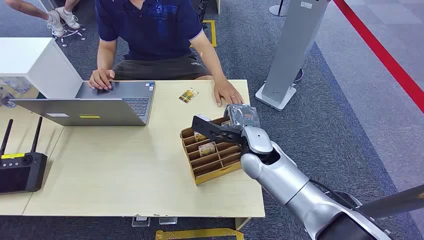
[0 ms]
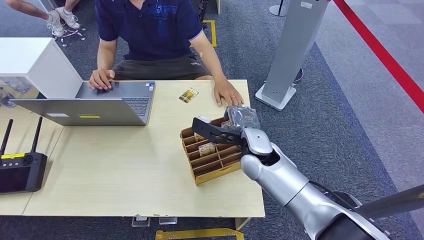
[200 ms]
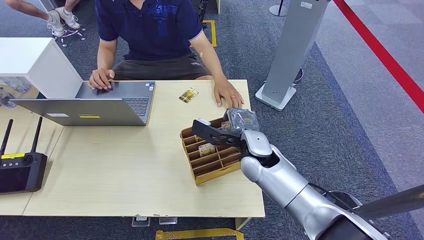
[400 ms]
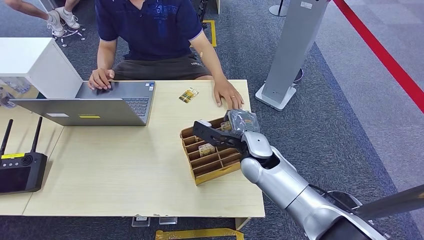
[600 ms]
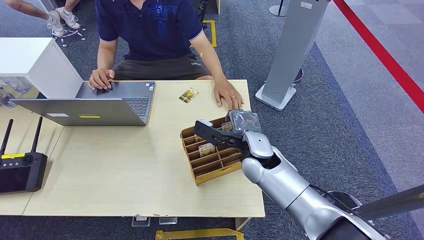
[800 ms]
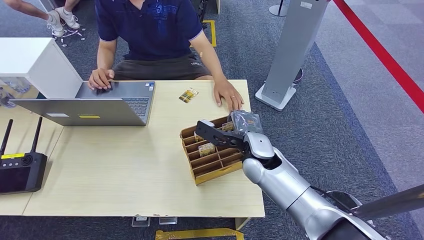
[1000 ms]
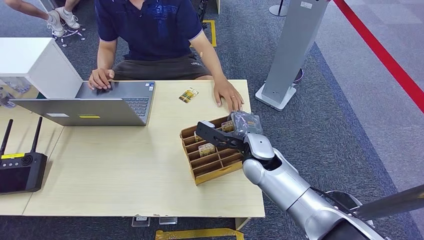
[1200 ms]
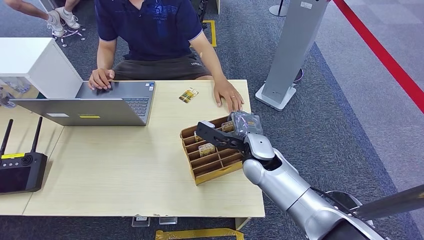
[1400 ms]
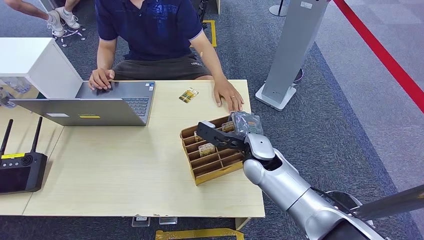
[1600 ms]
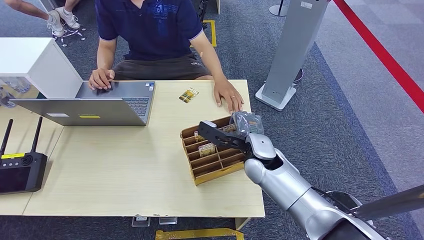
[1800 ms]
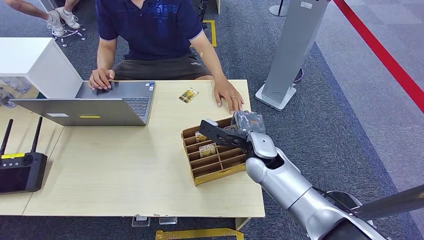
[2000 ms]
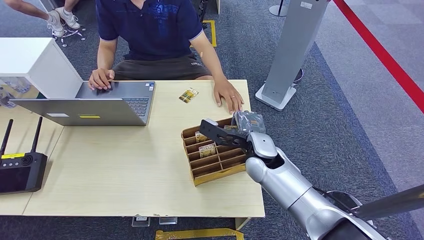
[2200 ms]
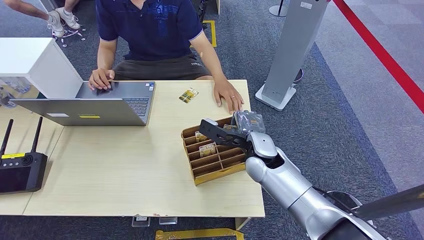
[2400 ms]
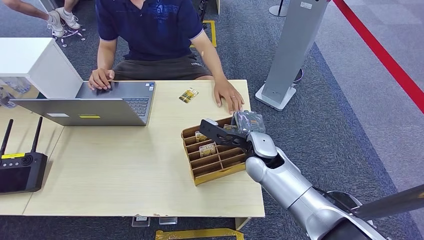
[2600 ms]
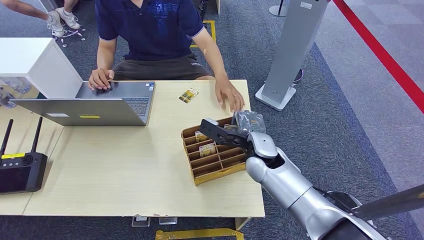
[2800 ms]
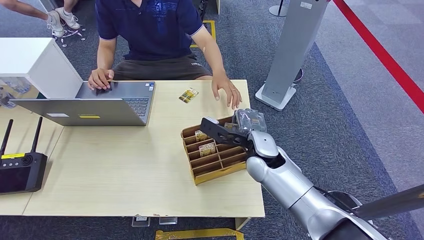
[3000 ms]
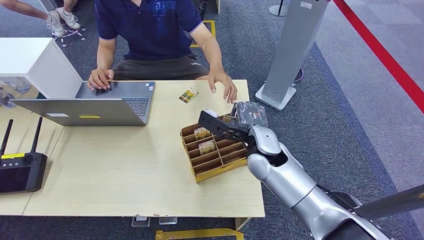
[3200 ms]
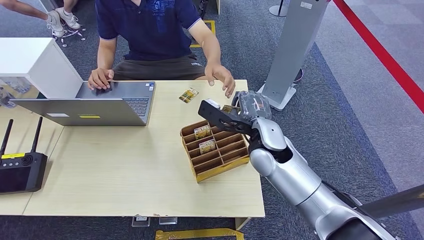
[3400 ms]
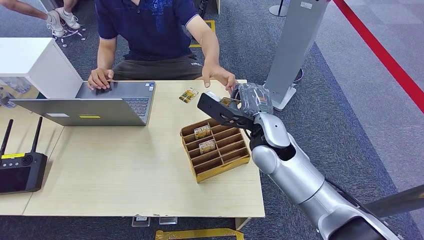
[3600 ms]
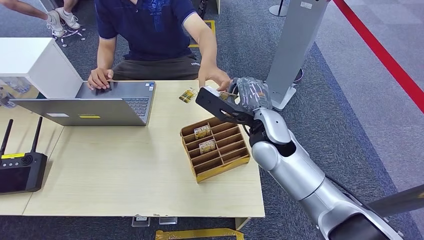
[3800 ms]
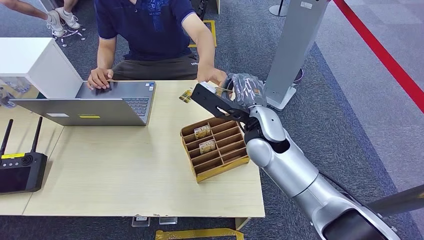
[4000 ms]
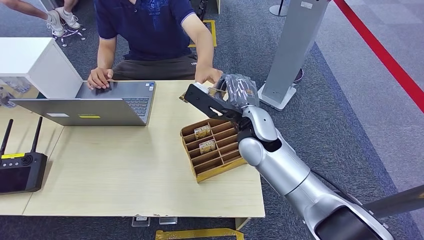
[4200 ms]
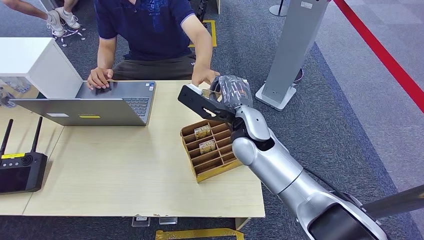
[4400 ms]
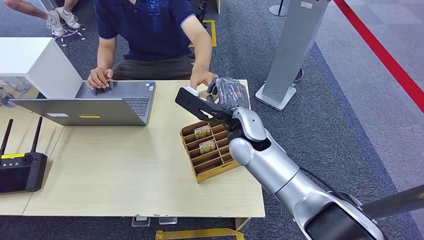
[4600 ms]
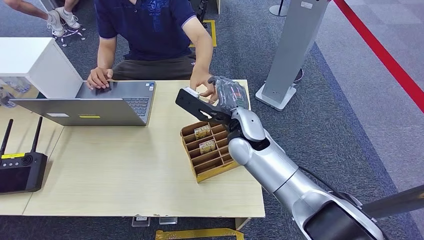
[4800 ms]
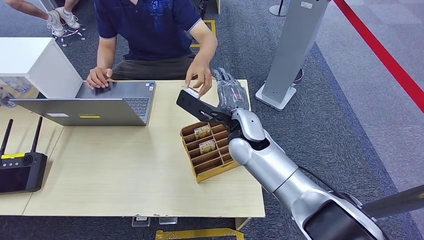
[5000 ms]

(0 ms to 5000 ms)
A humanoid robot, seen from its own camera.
Step, 0 ms - 3400 ms: Pick up the room card from the card holder.
Step, 4200 ms - 5000 ms: Hand the room card to the target.
1600 ms - 3400 ms: The right hand moves upward, roughly 5 cm.
3400 ms - 5000 ms: The right hand moves some 5 cm.

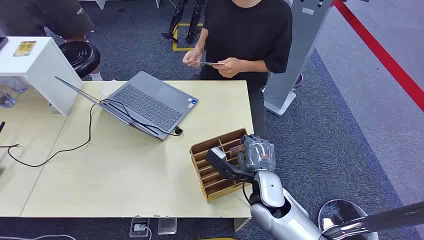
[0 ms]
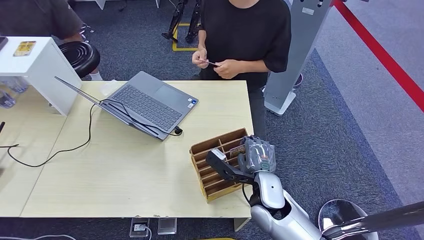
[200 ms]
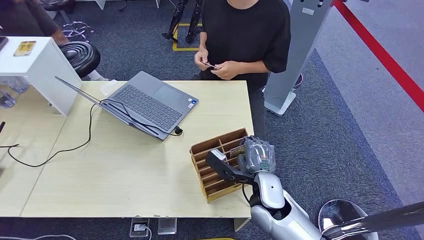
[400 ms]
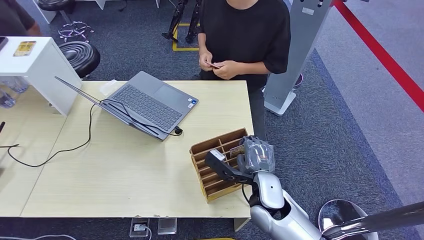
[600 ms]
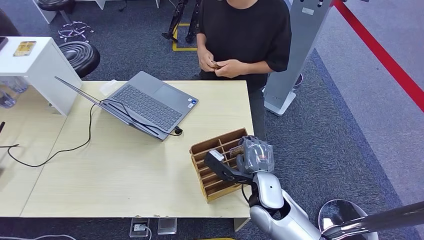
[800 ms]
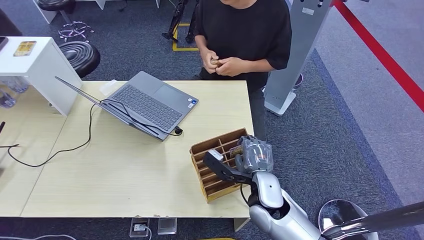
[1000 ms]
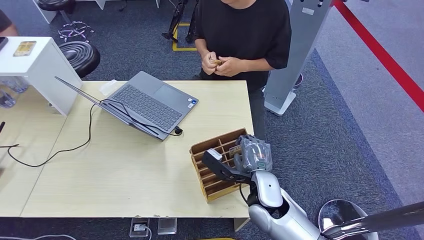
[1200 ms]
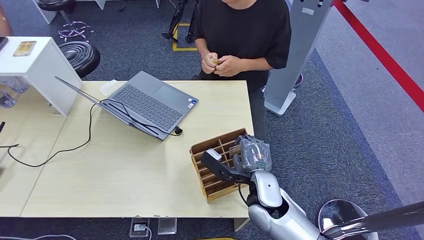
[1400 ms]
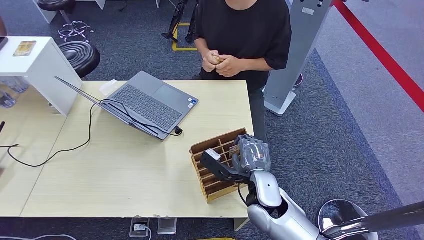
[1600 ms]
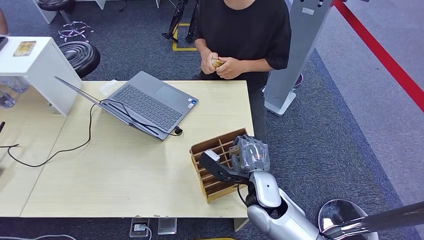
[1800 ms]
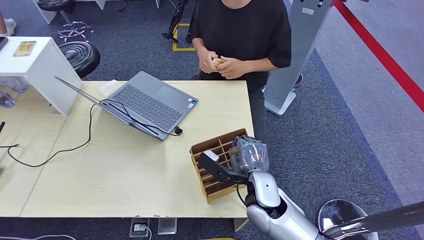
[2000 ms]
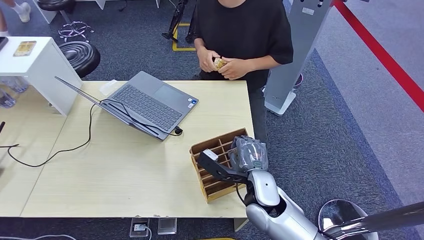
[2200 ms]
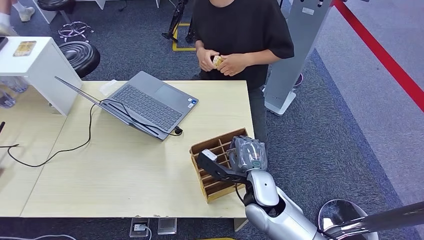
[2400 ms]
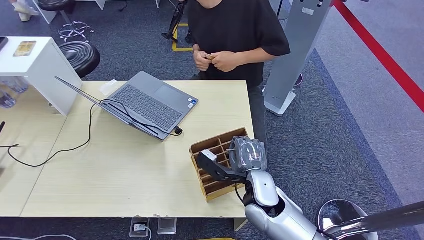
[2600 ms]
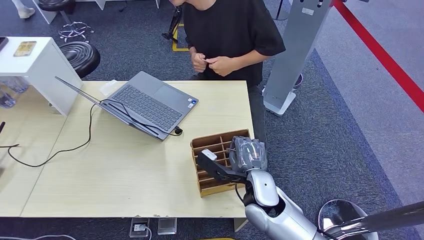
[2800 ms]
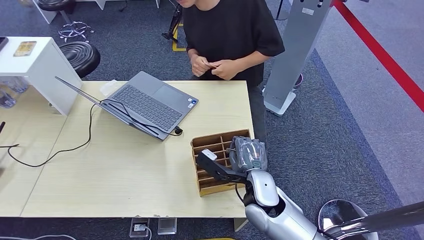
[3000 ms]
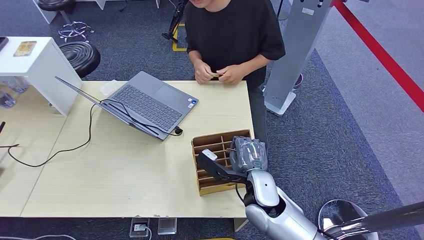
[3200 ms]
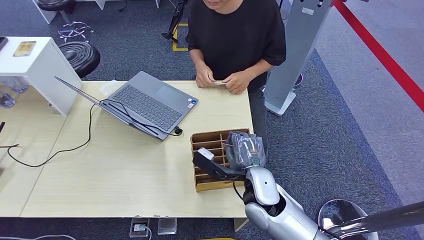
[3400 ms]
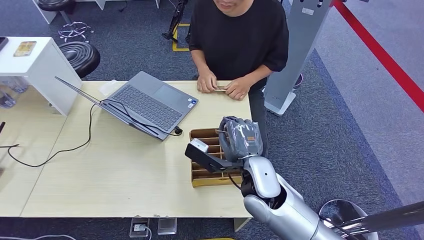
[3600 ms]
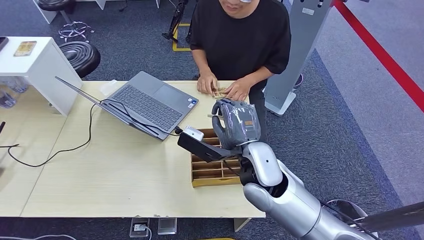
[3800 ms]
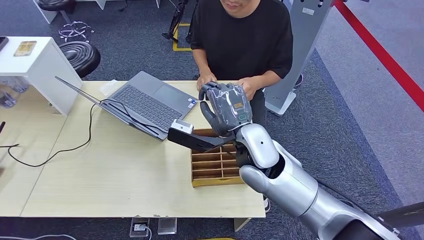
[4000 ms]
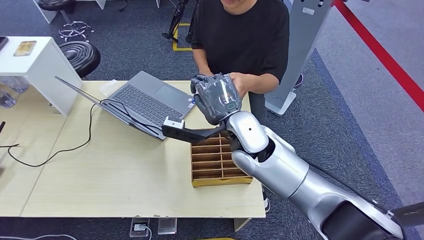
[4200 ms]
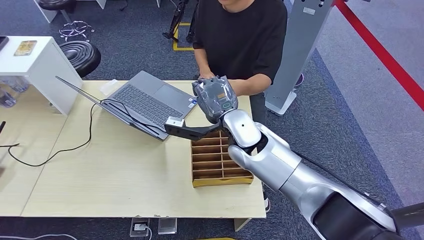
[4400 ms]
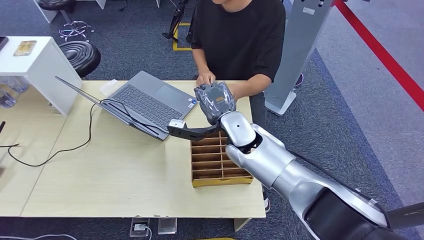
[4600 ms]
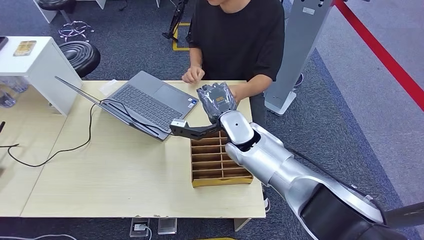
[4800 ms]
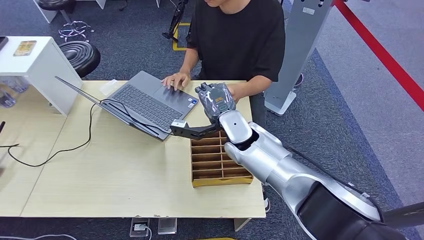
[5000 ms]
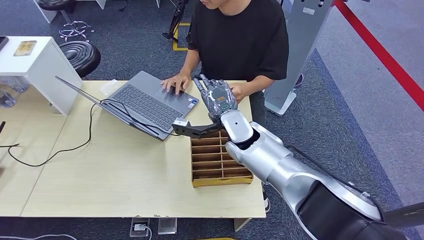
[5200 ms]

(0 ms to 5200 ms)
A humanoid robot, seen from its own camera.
Step, 0 ms - 3600 ms: Pick up the room card from the card holder.
Step, 4000 ms - 5200 ms: Hand the room card to the target.
1800 ms - 3400 ms: The hands stay close to where they were, moving slightly.
3400 ms - 5200 ms: The right hand travels forward and upward by approximately 15 cm.

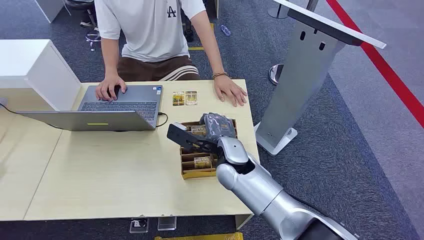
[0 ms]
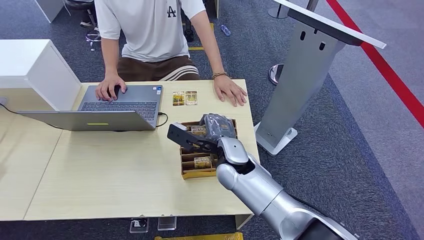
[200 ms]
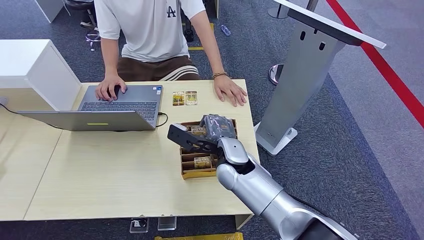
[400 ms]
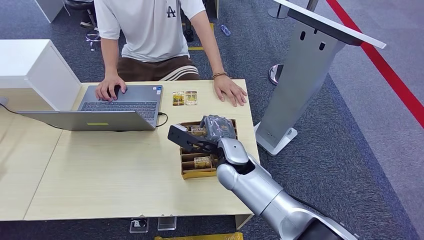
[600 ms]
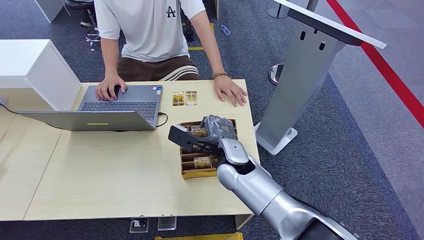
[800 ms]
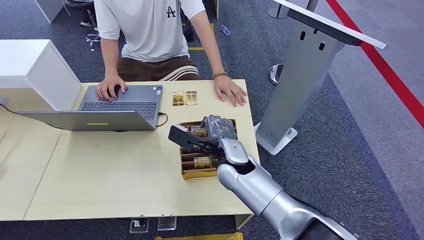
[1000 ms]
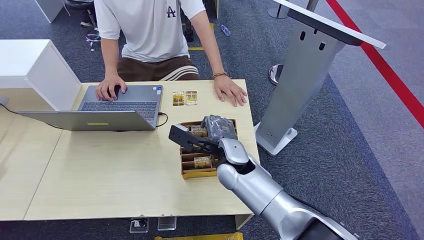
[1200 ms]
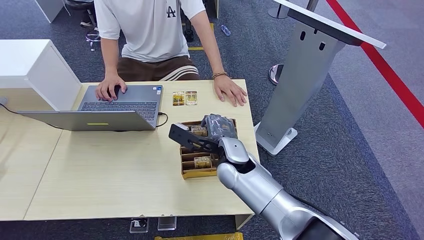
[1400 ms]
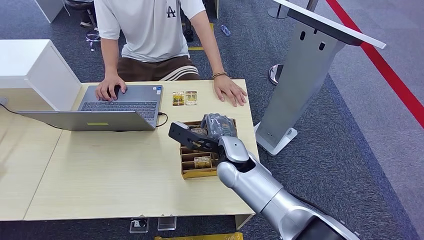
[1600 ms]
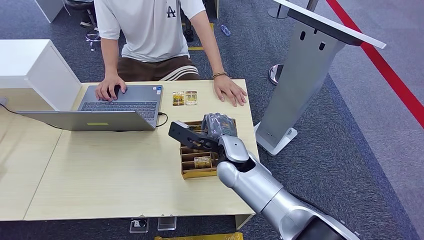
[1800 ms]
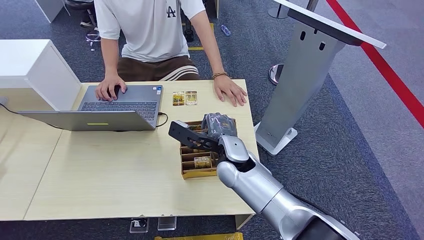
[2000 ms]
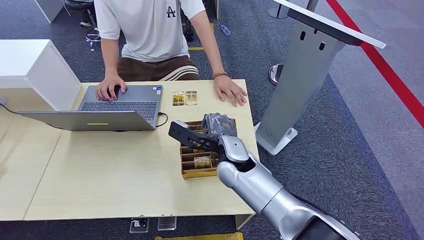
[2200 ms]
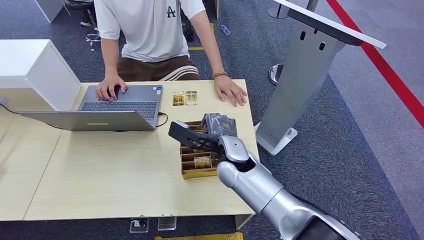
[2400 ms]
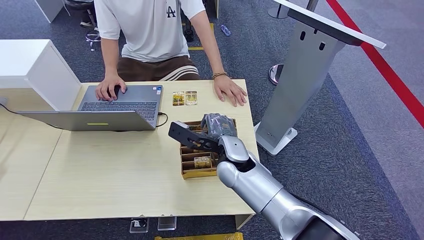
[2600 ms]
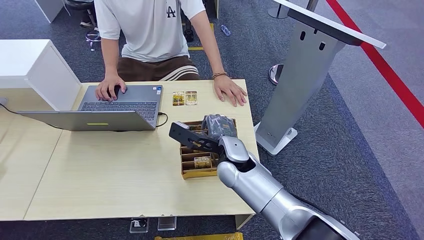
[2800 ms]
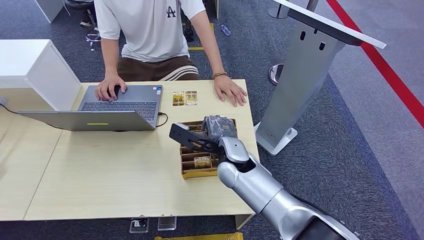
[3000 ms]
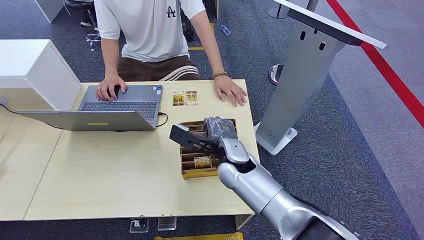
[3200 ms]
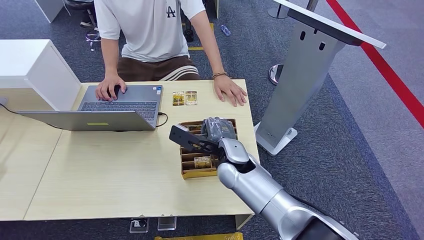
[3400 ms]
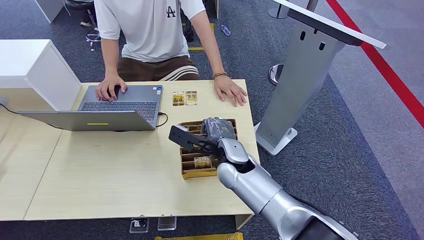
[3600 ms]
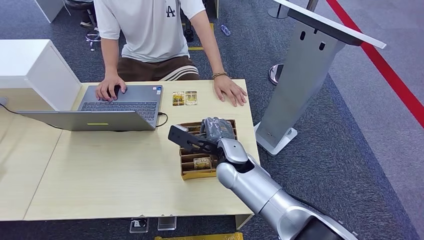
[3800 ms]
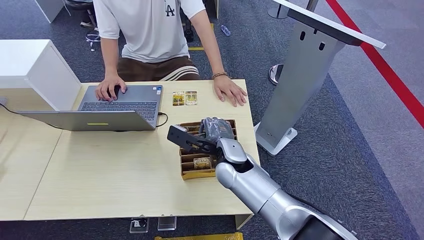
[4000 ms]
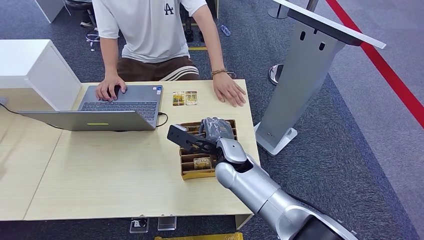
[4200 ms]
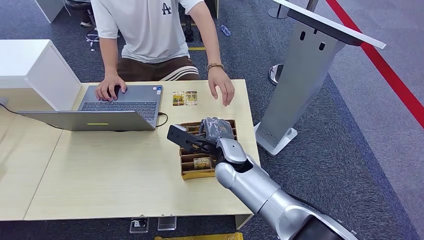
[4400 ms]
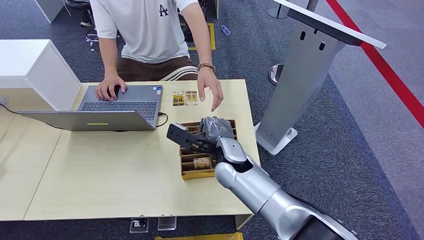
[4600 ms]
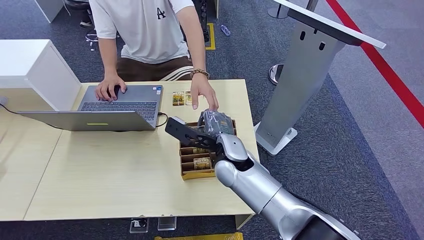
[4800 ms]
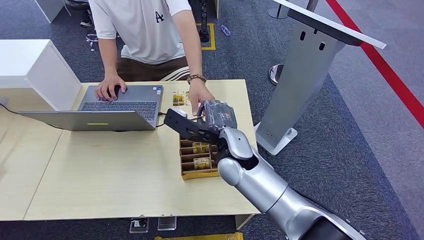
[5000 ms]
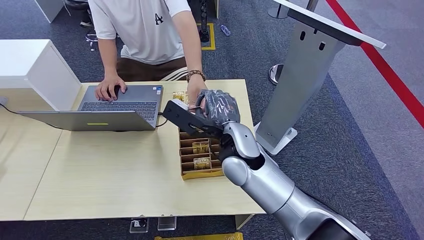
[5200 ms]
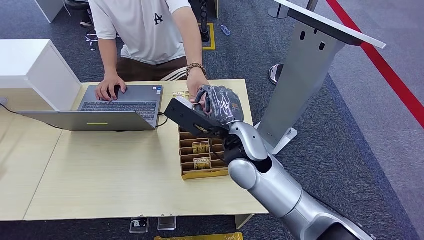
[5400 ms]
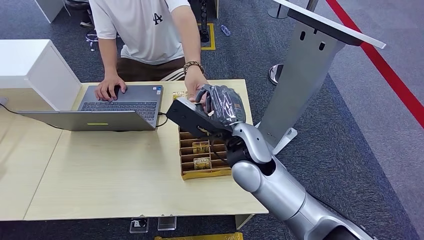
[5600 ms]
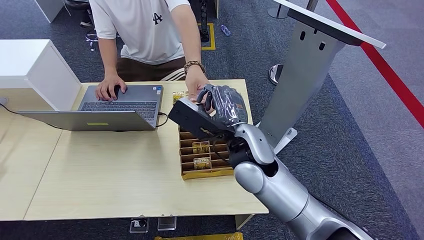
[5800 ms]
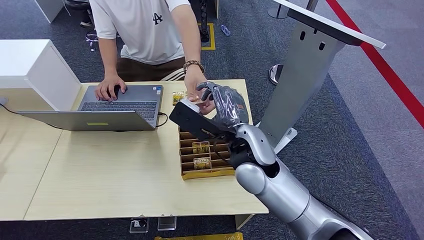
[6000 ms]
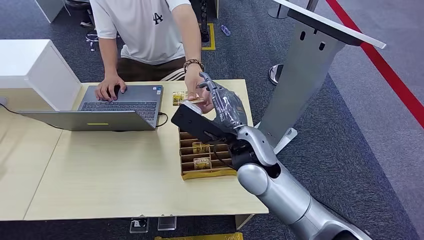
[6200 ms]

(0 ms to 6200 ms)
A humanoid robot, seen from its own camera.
Step, 0 ms - 4800 ms: Pick up the room card from the card holder.
Step, 5000 ms - 6000 ms: Hand the room card to the target.
1600 ms - 4600 ms: Neither hand changes place.
4600 ms - 6200 ms: The right hand is displaced upward by some 10 cm.
